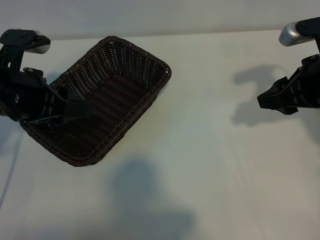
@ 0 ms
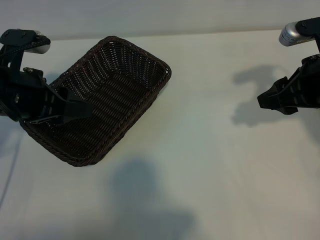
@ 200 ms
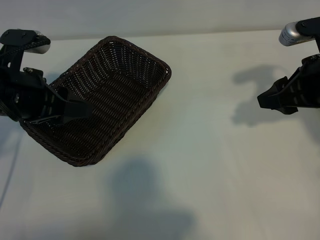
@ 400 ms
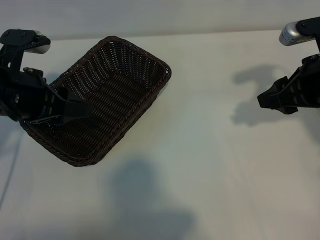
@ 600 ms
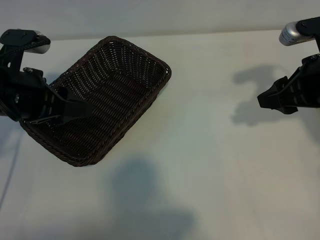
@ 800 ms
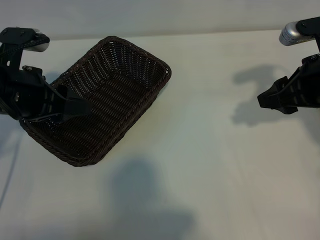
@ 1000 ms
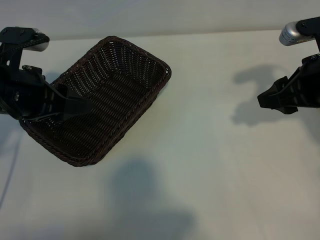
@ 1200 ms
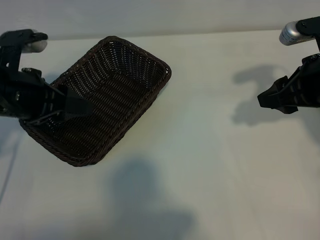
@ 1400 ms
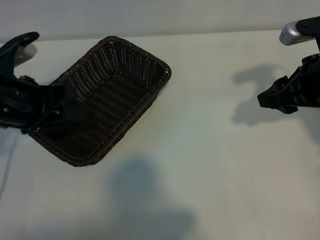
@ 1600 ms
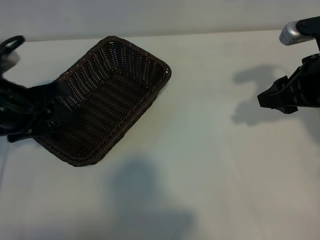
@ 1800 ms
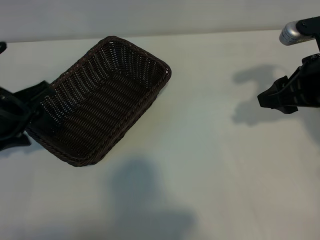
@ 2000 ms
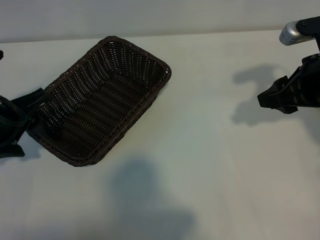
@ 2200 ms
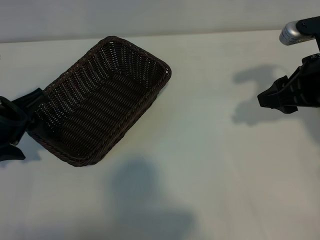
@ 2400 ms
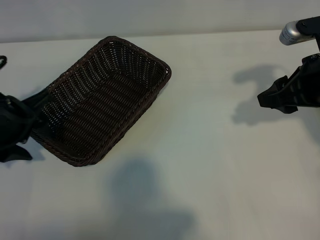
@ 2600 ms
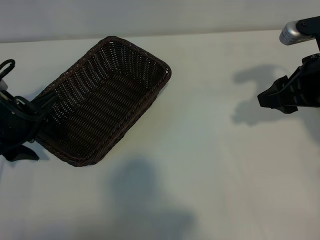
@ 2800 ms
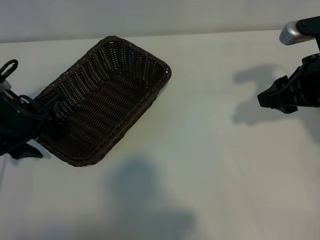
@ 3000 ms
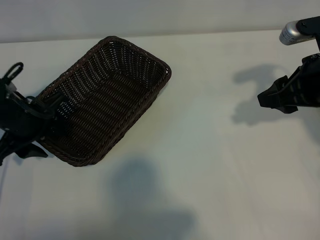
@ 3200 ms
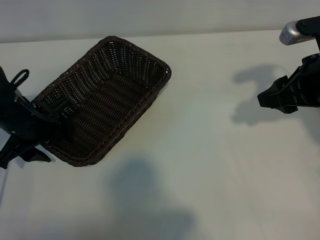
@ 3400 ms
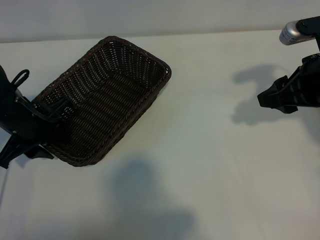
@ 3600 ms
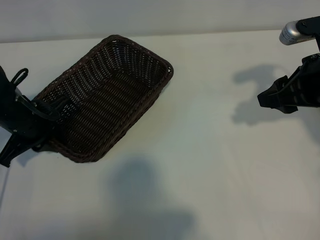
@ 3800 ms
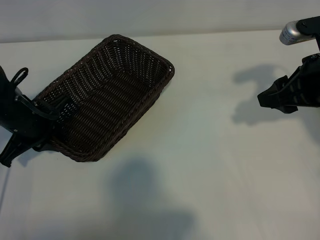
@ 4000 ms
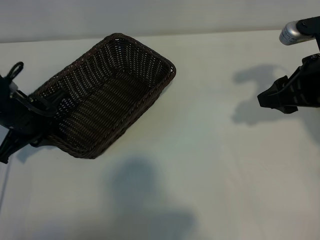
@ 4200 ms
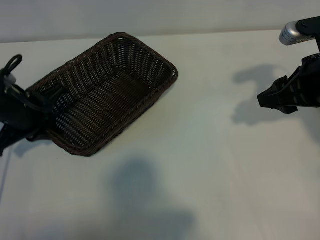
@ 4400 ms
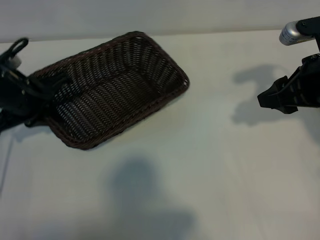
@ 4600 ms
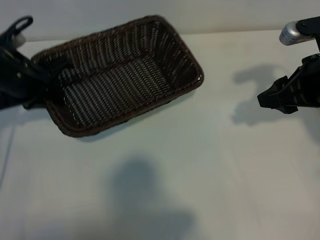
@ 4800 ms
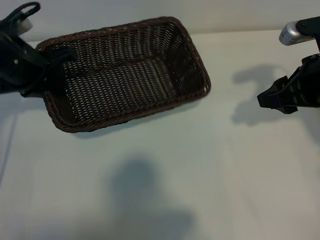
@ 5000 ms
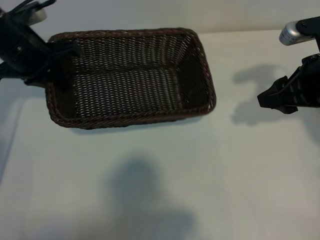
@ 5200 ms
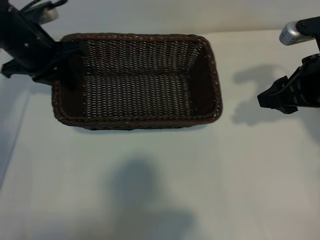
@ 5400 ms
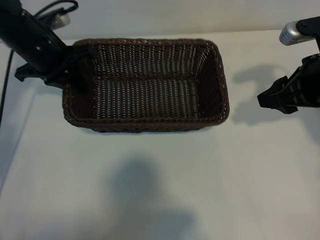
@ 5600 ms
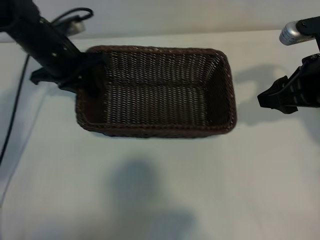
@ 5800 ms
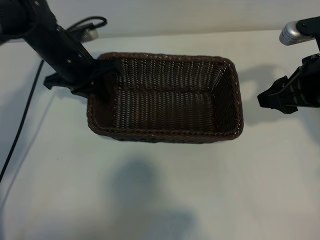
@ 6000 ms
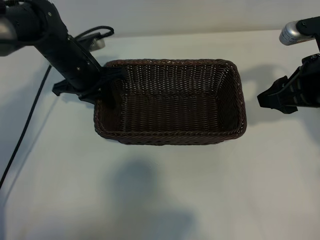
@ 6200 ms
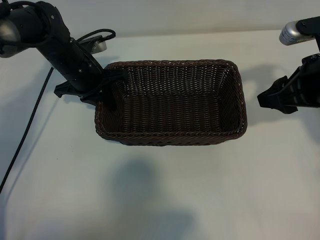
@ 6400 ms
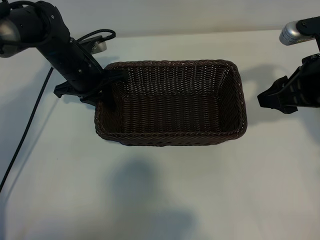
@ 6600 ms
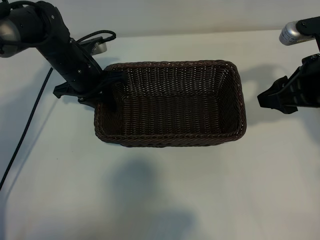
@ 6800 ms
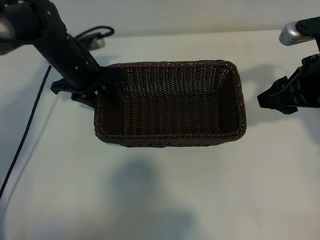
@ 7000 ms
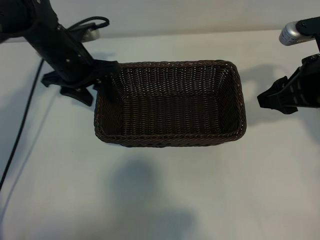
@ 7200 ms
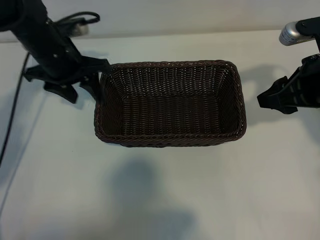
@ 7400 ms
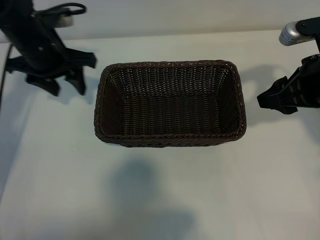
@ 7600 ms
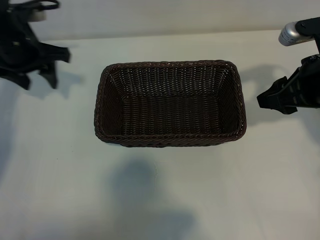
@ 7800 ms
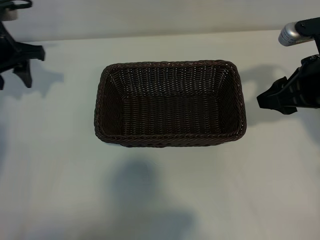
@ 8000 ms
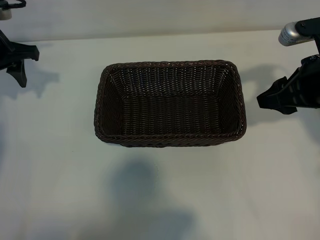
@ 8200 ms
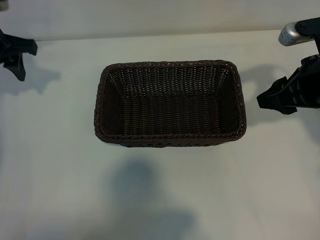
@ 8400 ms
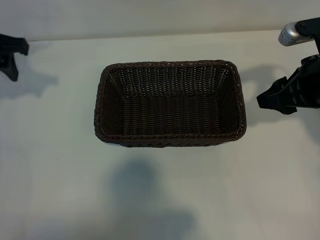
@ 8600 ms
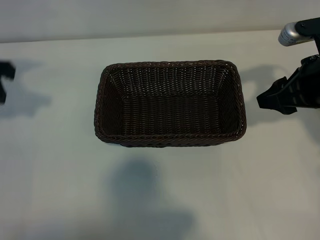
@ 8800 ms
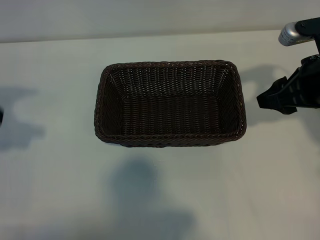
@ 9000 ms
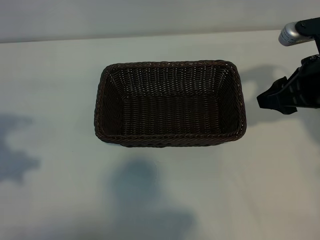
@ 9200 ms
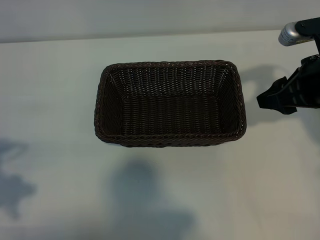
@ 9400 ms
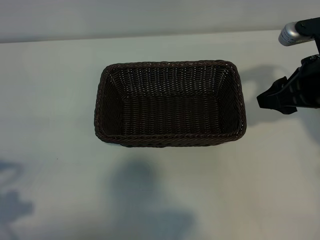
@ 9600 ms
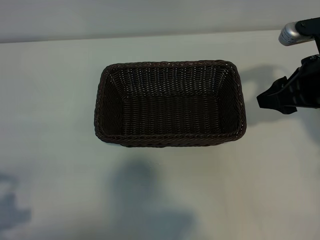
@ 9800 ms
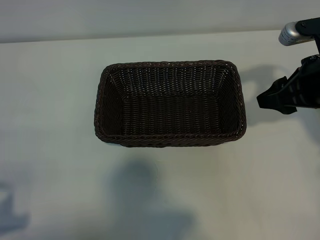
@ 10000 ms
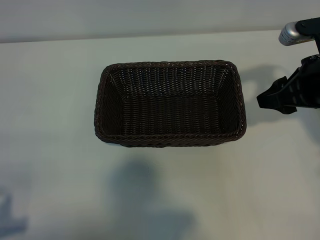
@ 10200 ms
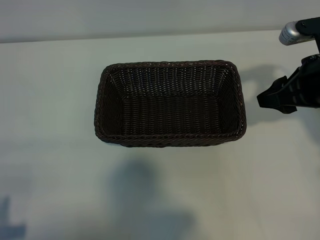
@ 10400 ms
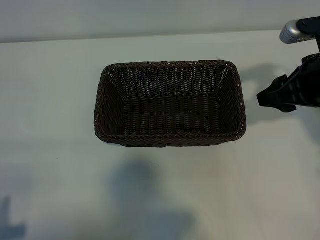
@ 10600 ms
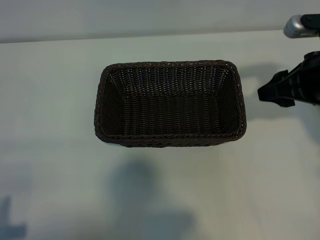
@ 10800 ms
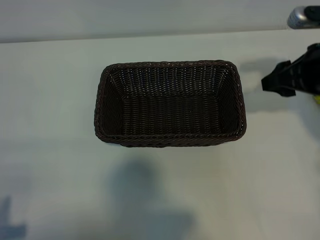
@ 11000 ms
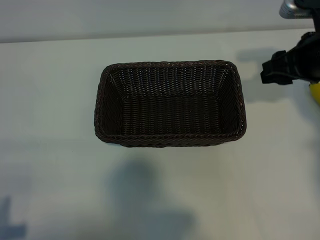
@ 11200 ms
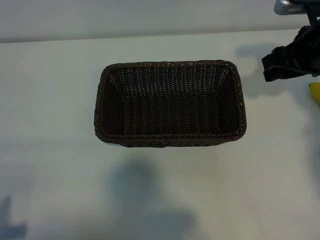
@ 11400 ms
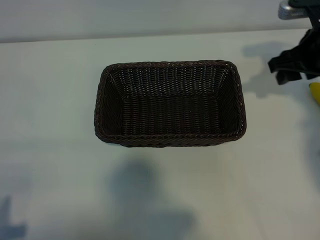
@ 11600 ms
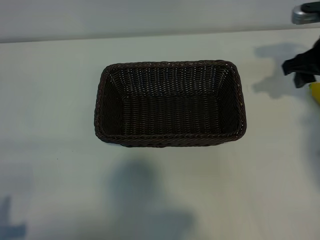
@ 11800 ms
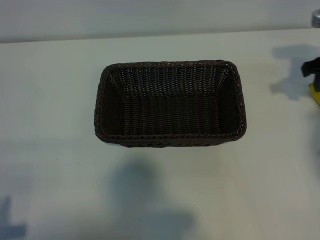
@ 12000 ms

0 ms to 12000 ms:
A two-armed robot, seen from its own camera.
Task of the whole recording: pick up the banana and put it into the basket.
Step, 1000 ms to 4000 ms: Grasp the basket with the left gripper.
Step, 4200 ms to 7400 ms: Place the basket in the center of the table with the left gripper.

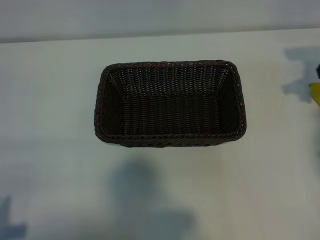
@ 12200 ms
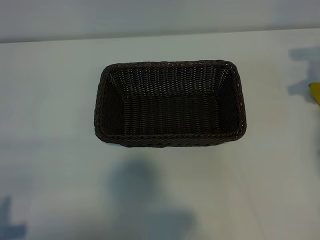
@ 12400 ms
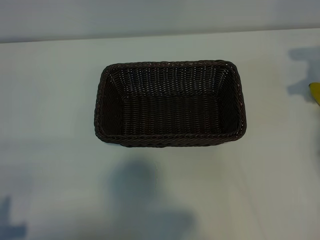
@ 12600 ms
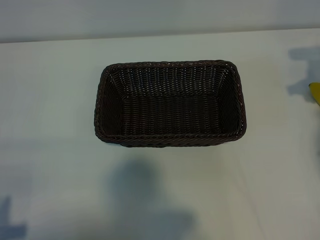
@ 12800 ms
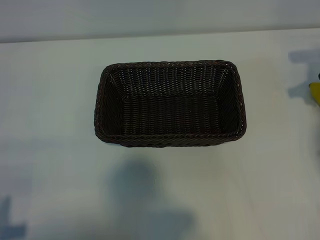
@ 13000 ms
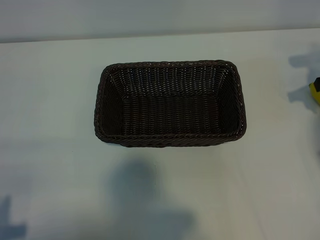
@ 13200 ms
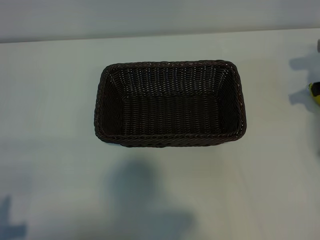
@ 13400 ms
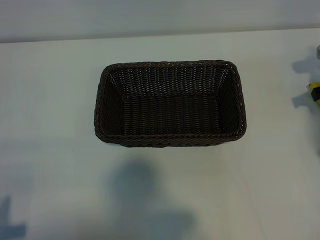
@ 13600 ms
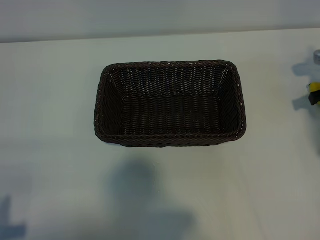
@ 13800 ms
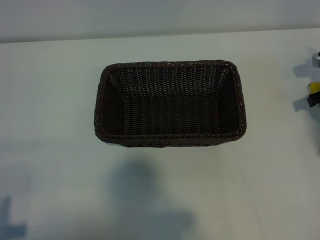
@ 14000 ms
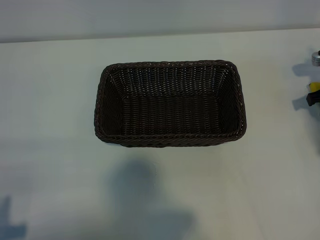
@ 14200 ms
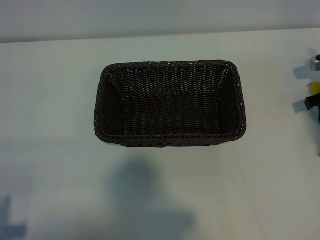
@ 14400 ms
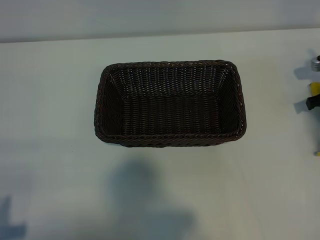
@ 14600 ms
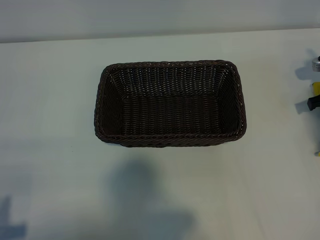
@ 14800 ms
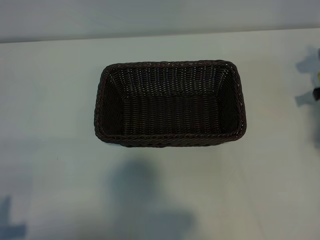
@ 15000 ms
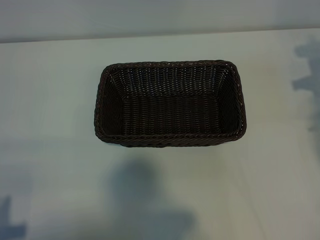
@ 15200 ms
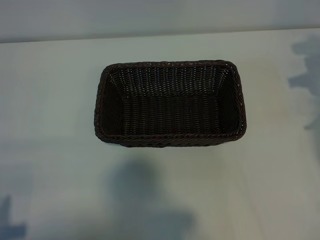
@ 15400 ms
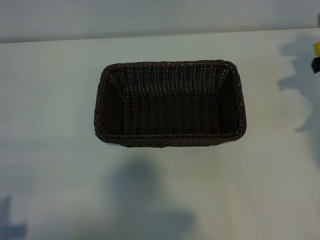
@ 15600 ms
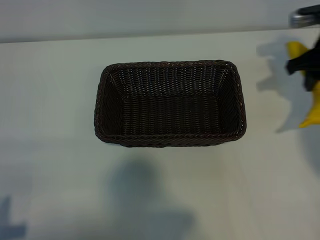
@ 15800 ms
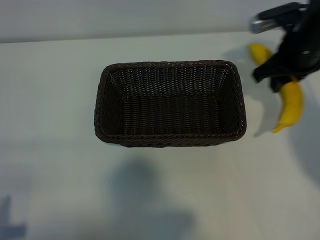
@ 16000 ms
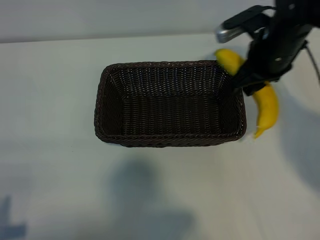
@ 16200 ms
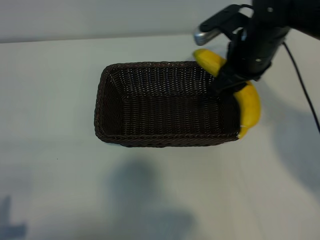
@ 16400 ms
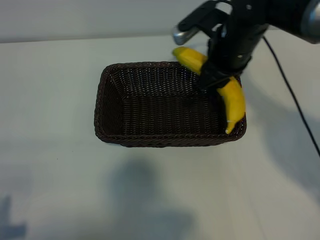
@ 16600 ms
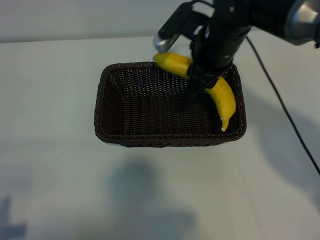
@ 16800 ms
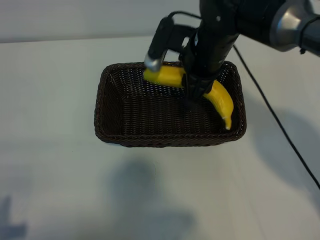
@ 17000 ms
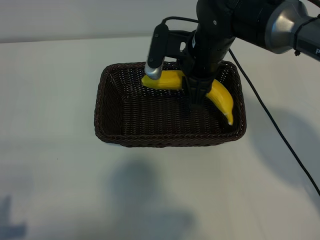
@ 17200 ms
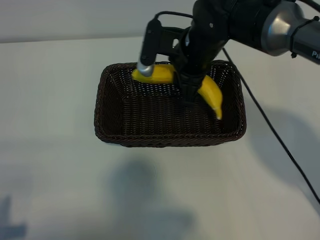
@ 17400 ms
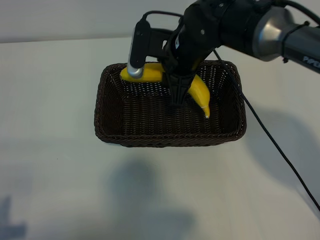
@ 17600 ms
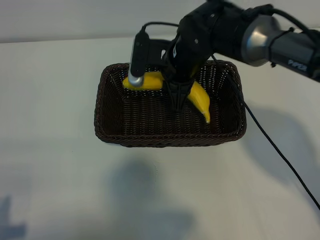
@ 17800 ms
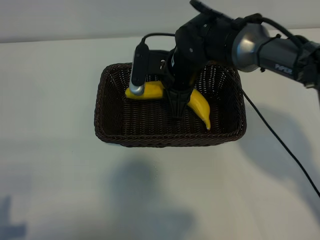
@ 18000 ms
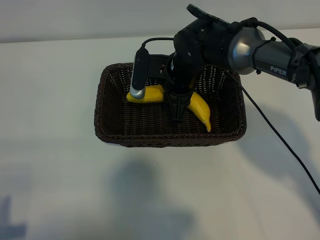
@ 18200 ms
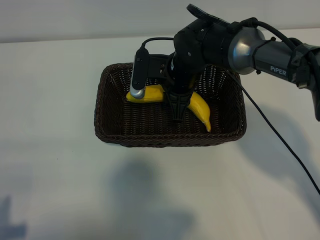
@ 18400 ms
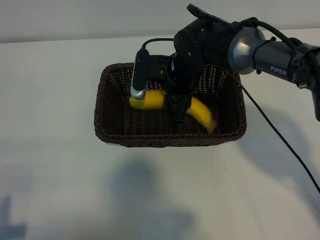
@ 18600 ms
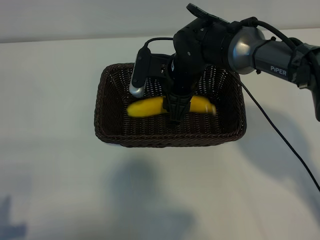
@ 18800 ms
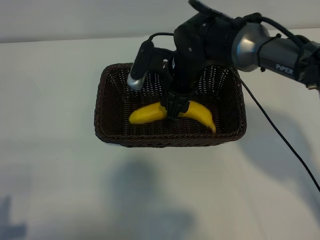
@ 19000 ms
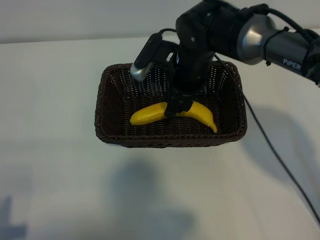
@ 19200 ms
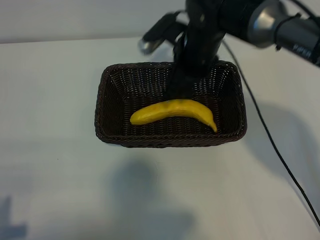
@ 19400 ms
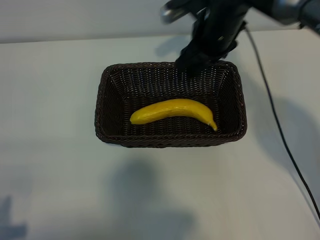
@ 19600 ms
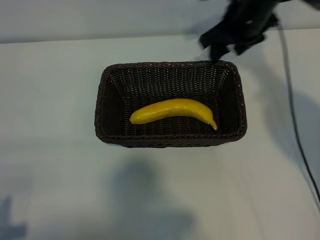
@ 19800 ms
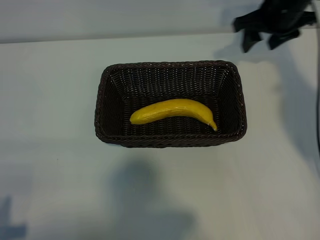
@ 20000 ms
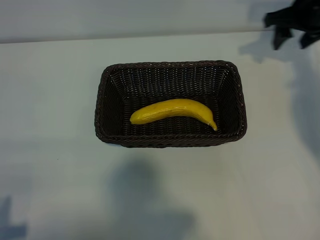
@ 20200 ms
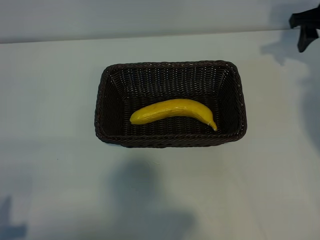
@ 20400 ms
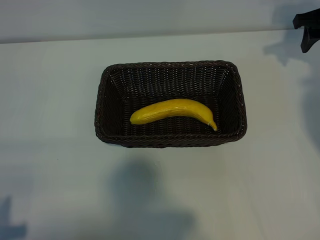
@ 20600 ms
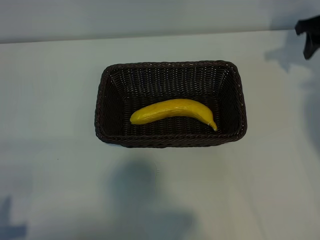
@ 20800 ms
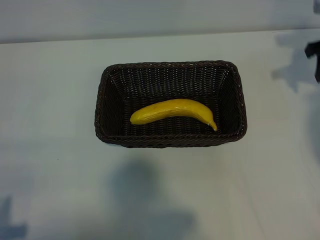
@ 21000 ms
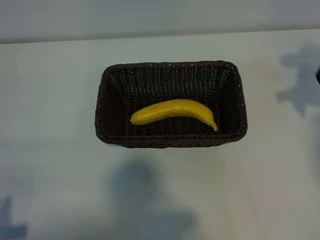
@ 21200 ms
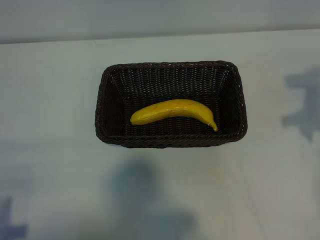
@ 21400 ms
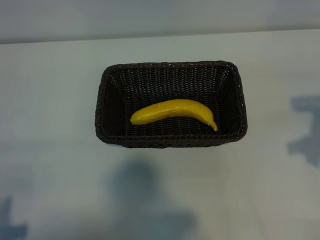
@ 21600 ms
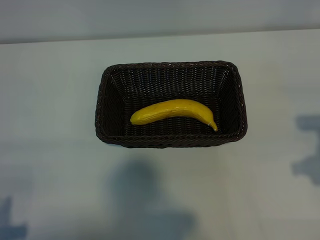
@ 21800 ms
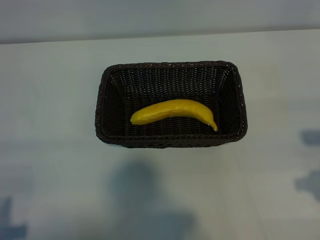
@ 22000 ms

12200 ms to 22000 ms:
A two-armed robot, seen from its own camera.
Task of the whole recording: pick up the banana and put it into the basket.
Step, 15000 ms to 19200 ms: Place the banana in the basket with right gripper.
